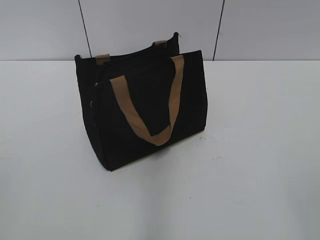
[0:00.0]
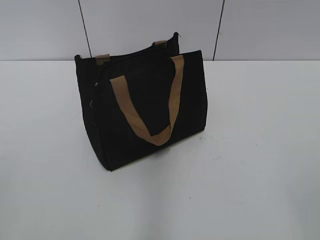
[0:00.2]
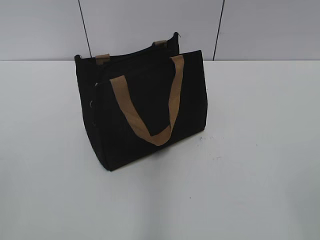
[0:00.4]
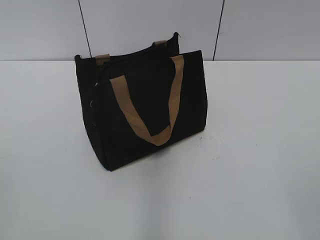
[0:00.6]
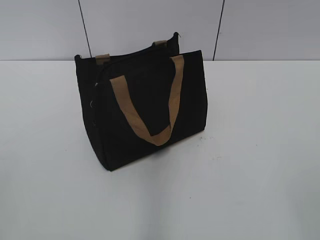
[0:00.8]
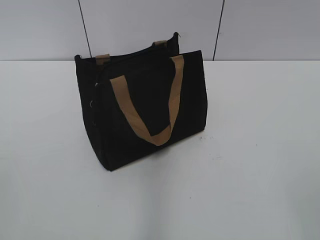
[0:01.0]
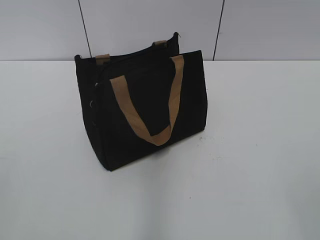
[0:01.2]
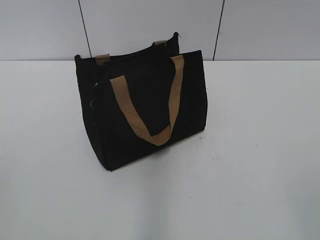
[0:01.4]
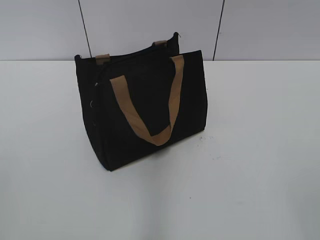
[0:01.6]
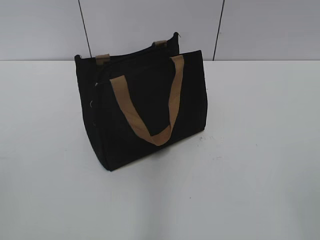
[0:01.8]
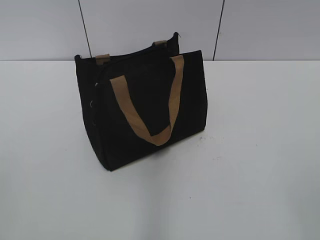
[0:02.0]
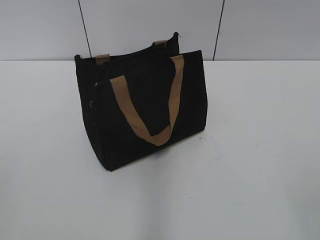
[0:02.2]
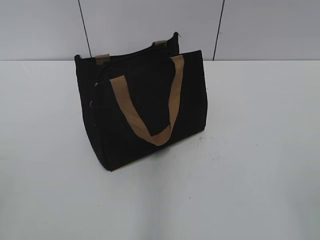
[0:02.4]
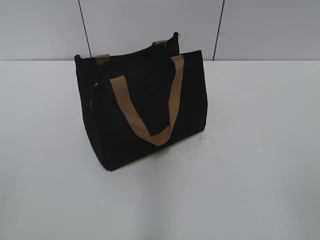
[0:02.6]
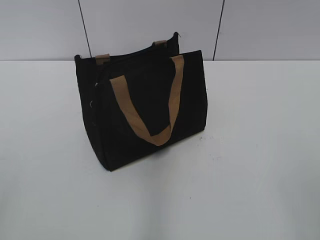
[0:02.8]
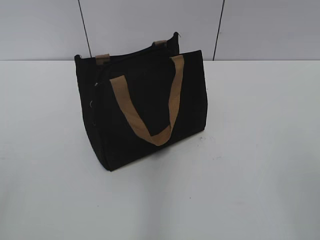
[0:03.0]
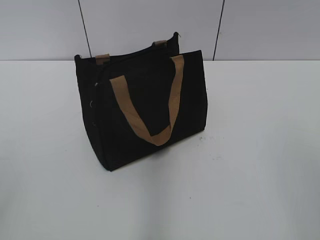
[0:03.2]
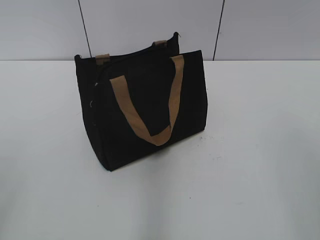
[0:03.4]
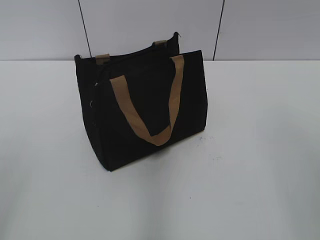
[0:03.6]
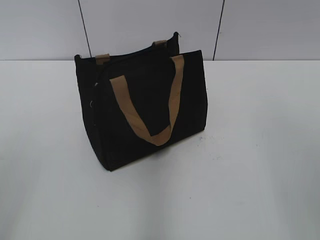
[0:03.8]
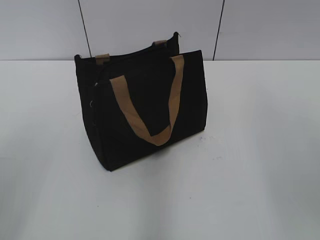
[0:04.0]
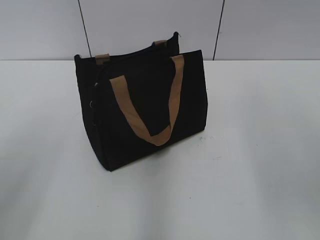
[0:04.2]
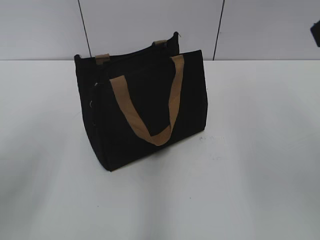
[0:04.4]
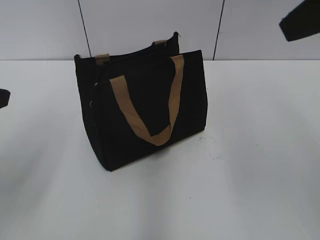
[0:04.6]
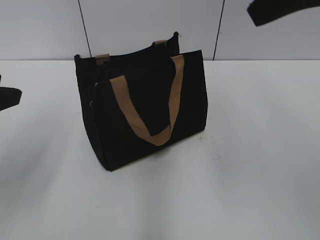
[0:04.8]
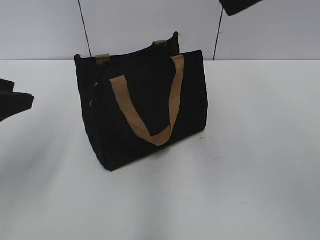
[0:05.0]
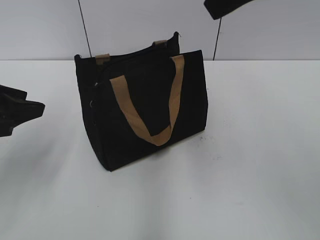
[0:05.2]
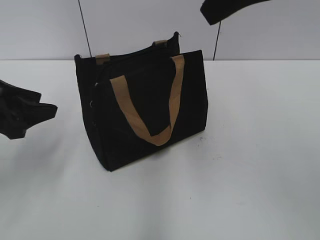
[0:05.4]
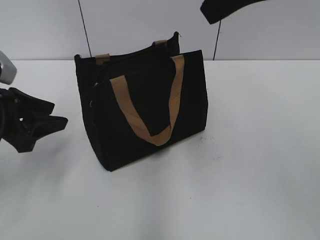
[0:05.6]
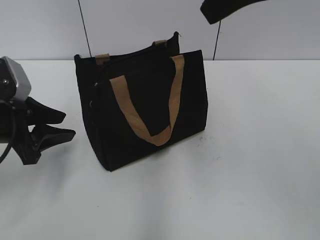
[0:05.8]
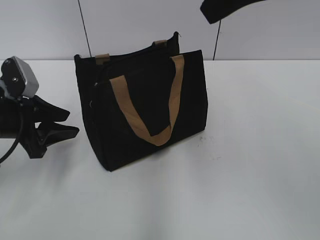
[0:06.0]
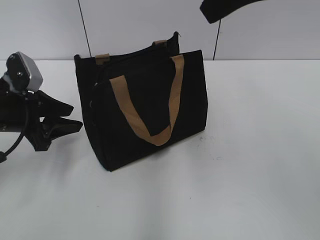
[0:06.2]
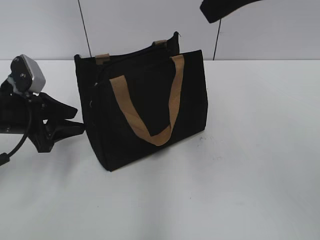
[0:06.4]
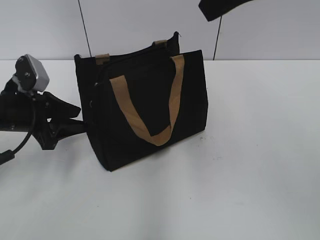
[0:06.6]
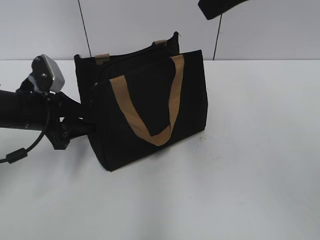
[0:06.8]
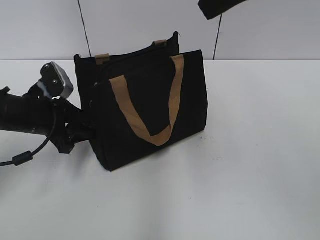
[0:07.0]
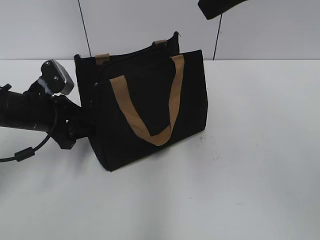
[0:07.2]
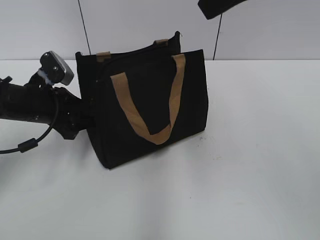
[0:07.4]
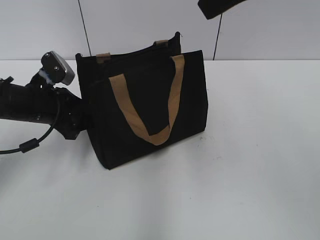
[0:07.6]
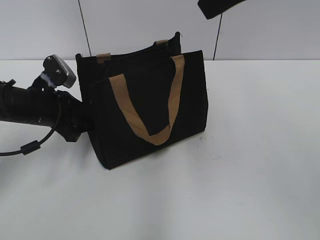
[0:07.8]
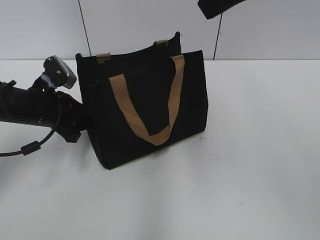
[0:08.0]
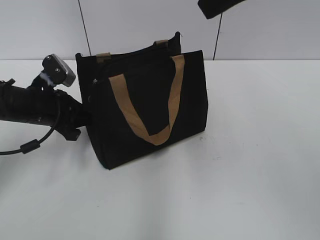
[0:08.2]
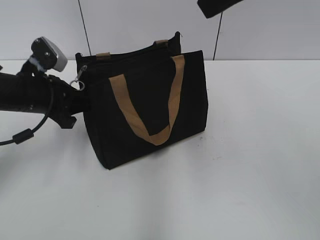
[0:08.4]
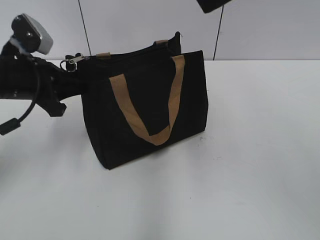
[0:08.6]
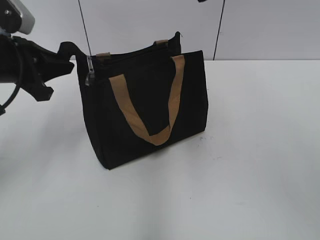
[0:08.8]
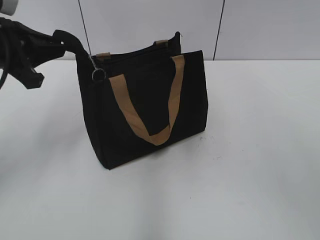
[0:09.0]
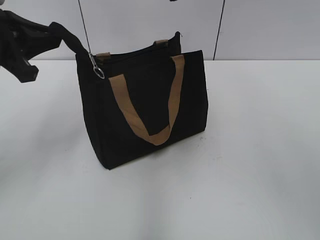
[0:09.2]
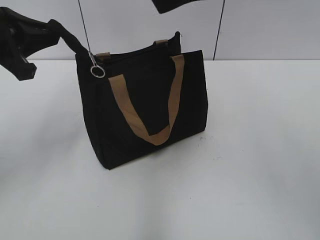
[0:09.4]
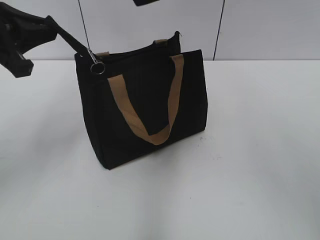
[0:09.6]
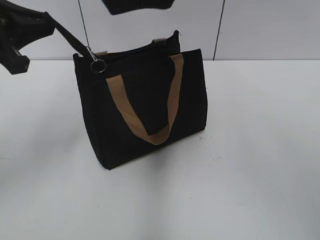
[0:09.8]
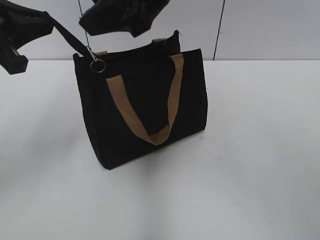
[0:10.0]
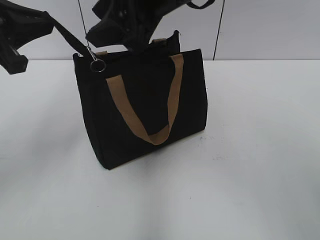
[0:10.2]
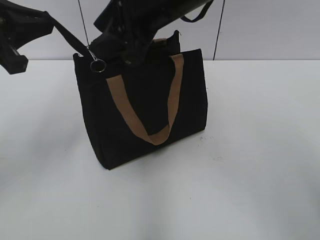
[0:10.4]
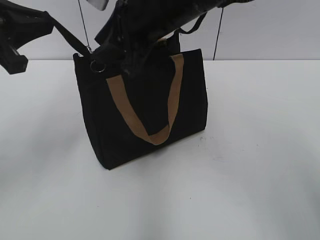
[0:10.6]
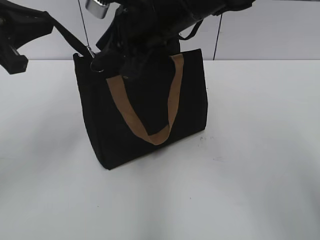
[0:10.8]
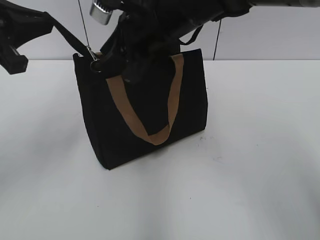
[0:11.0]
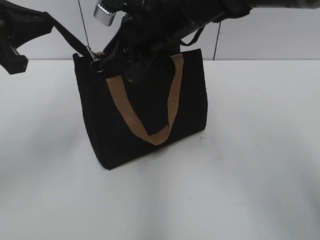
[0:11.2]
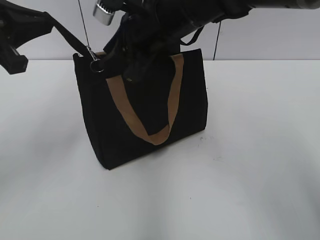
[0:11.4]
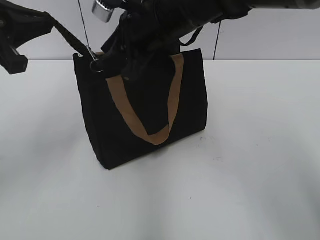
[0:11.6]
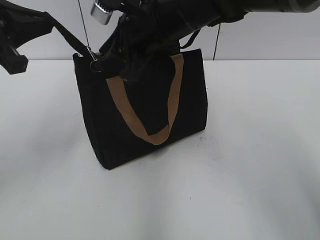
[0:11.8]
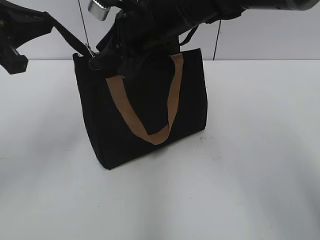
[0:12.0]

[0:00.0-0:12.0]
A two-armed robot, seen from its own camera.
0:03.0 to 0:04.4: The left gripper shifts about 15 cm forward.
0:04.4 to 0:06.0: The left gripper shifts approximately 20 cm downward and forward, while the right gripper moves to the left and forward, roughly 10 cm.
0:06.0 to 0:07.6: The left gripper moves forward, some 5 cm.
0:07.6 to 0:09.0: The left gripper travels upward by roughly 15 cm, and closes.
0:09.0 to 0:10.4: The right gripper heads downward, to the left and forward, covering roughly 15 cm.
0:10.4 to 0:12.0: The right gripper shifts by some 5 cm.

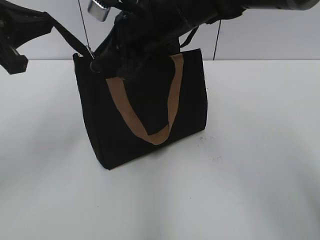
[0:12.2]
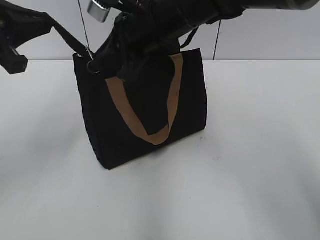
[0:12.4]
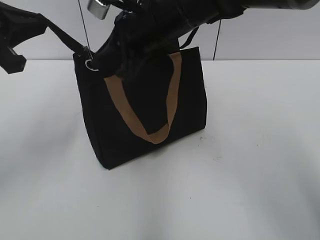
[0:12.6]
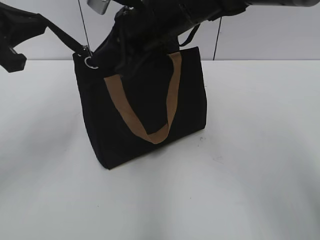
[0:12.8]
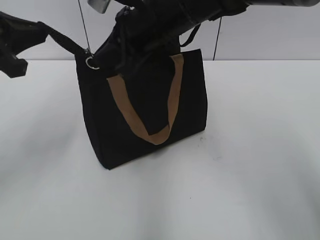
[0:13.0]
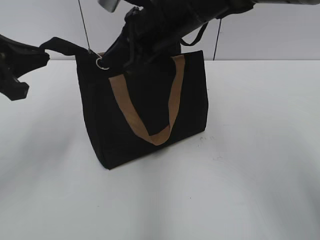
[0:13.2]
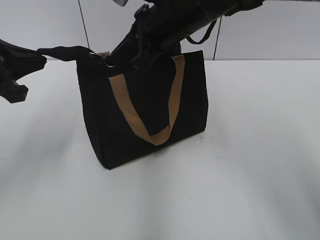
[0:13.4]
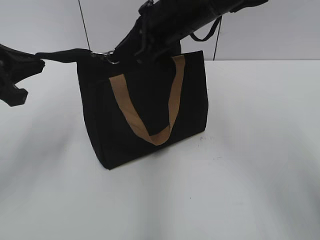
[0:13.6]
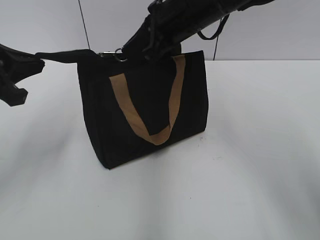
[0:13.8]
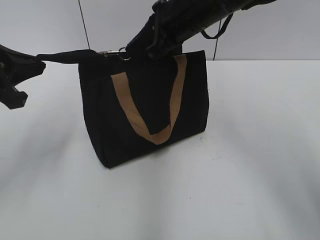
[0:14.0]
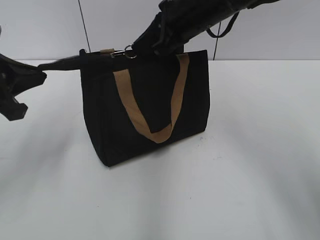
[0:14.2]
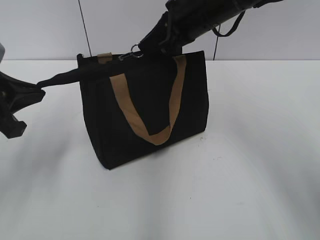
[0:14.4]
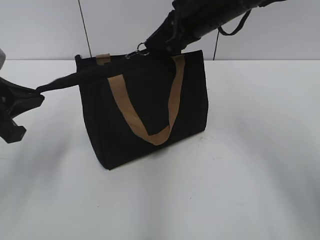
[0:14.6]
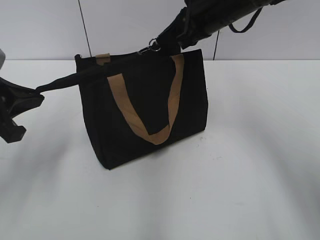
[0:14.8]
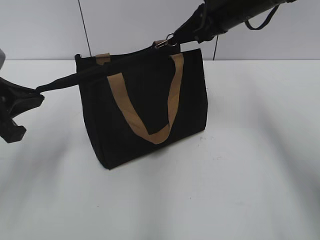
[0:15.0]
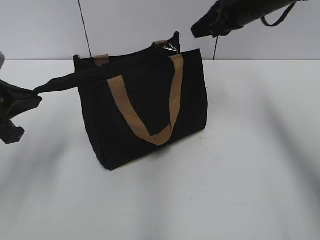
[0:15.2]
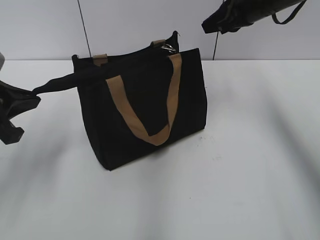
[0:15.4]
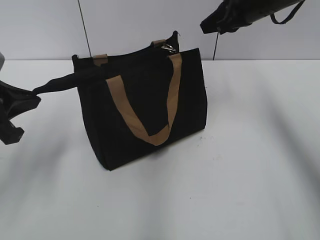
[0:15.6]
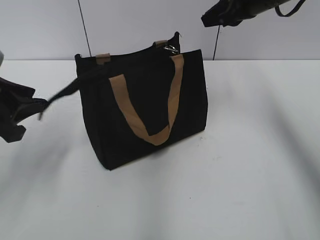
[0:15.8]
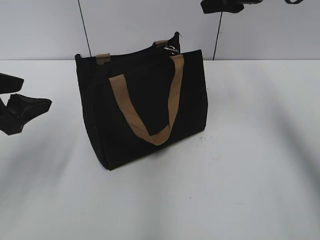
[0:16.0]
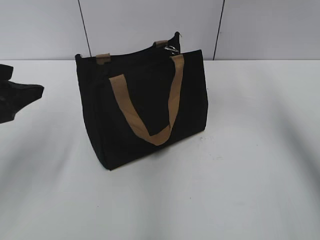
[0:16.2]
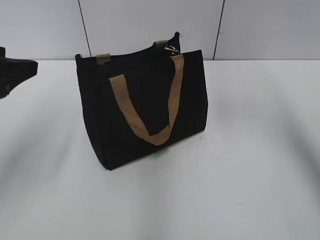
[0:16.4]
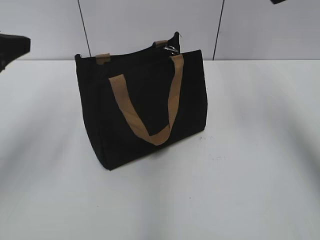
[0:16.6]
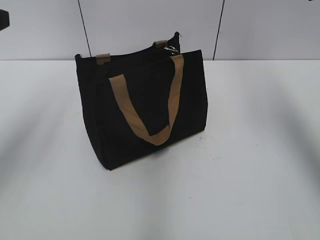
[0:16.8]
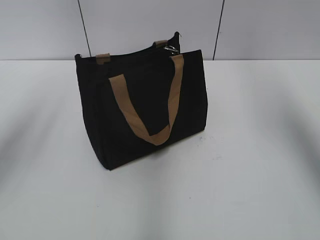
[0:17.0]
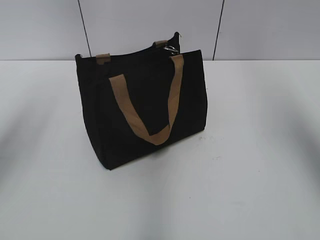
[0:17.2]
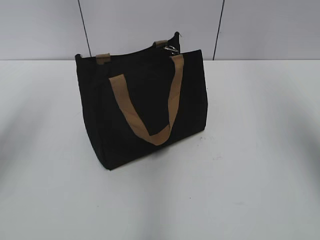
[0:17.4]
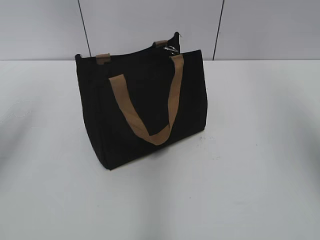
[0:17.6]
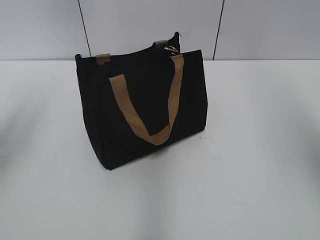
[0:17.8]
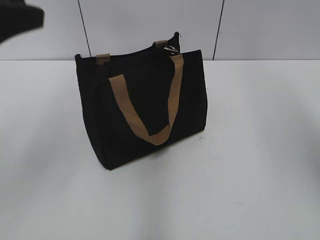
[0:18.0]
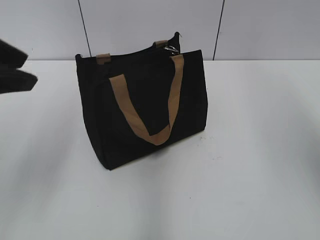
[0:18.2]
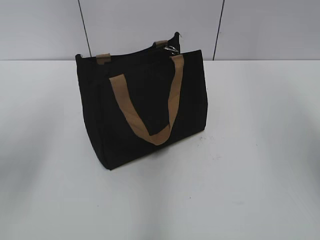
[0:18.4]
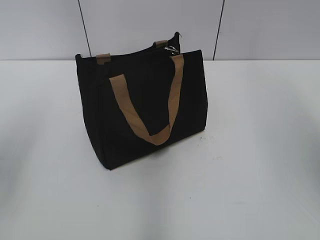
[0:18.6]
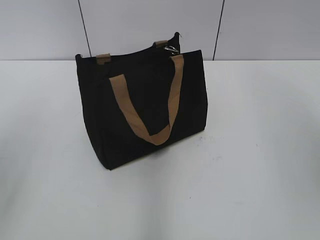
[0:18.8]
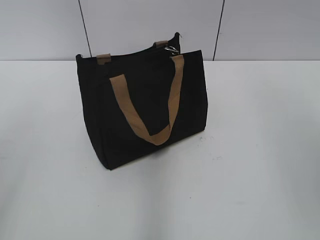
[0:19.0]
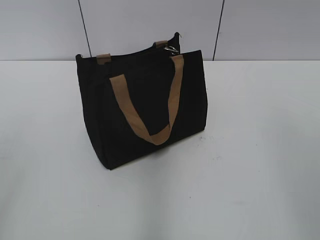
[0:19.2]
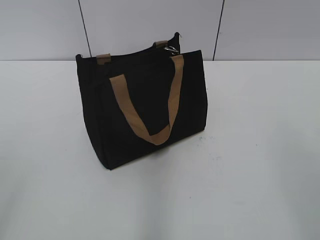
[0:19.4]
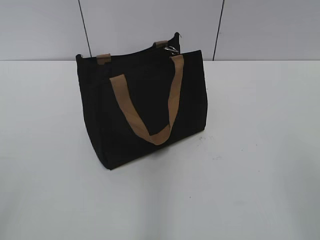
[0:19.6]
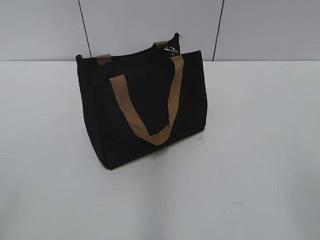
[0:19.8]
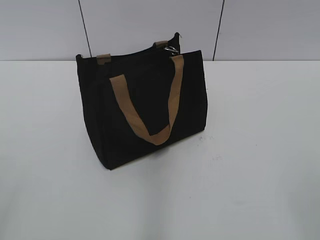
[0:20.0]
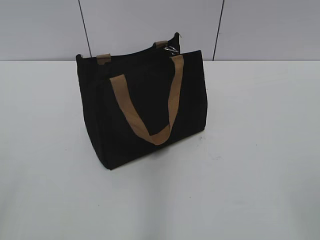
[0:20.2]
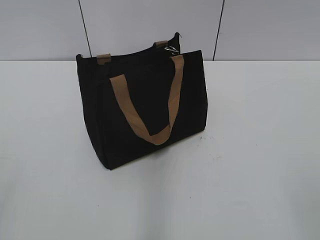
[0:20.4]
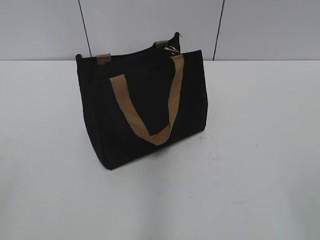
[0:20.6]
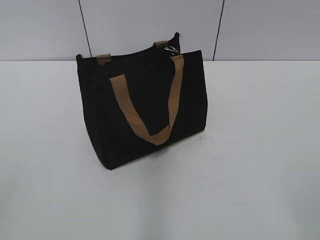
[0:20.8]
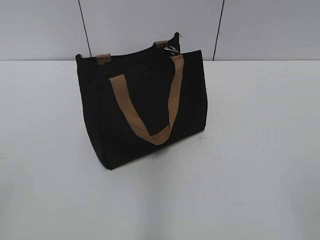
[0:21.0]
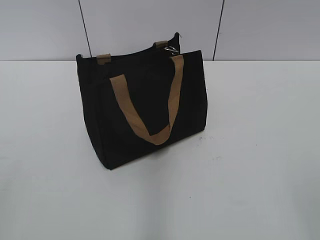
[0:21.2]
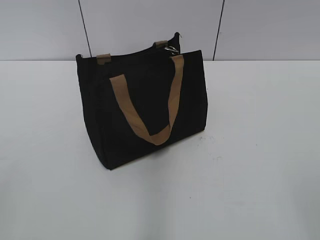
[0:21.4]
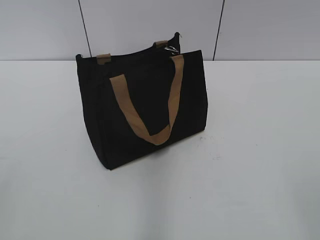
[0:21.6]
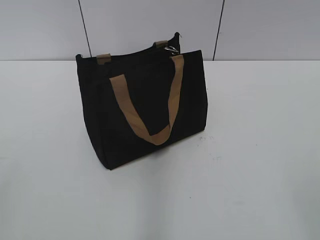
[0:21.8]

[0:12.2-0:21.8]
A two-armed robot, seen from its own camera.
Step, 0:12.2 to 0:15.2: Zip up the bag with your right hand.
Step, 0:15.4 to 0:15.8: Grab the zipper with your left hand.
0:12.2 to 0:13.8: The right gripper closes.
0:13.8 to 0:15.4: The right gripper is displaced to the right and forward by some 15 cm.
0:15.4 to 0:17.0: The left gripper shifts about 10 cm upward, and opens. The right gripper goes about 20 cm upward, backward and to the right, and opens.
0:18.6 to 0:20.2: The left gripper goes approximately 20 cm backward.
